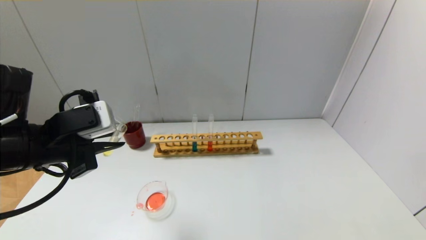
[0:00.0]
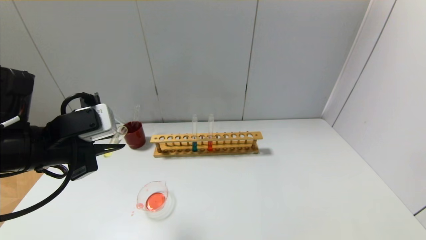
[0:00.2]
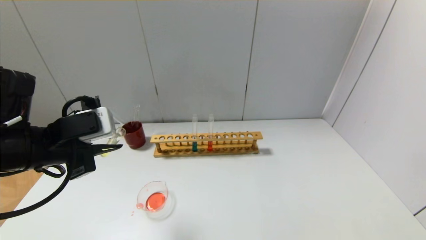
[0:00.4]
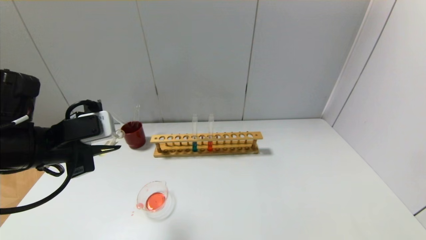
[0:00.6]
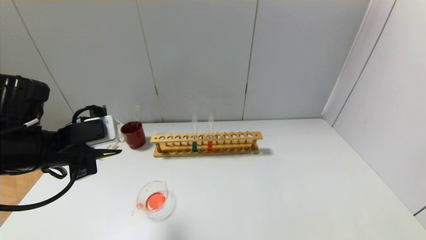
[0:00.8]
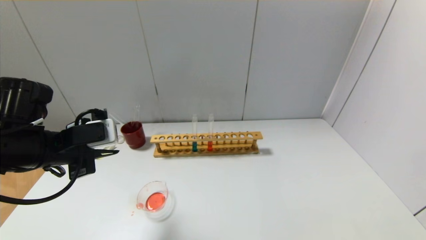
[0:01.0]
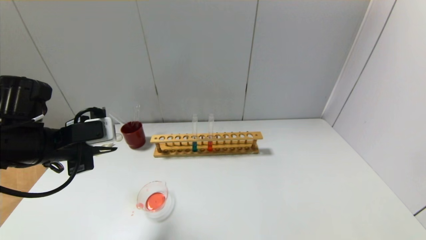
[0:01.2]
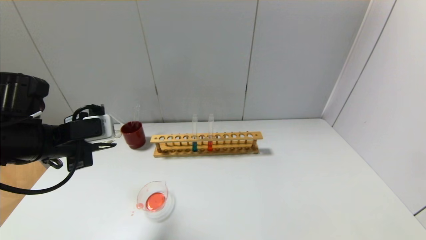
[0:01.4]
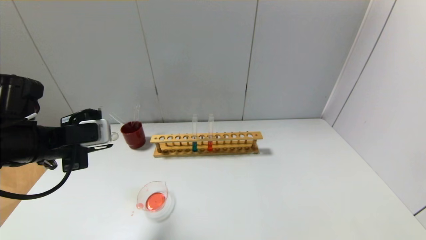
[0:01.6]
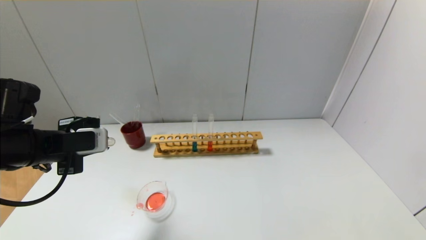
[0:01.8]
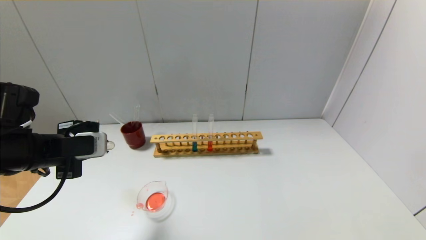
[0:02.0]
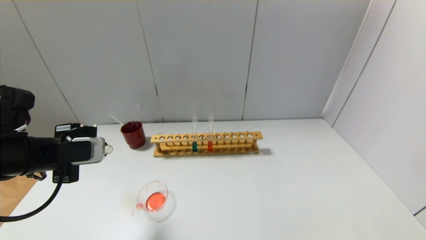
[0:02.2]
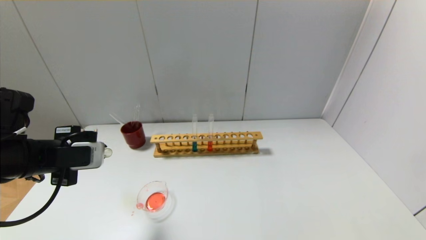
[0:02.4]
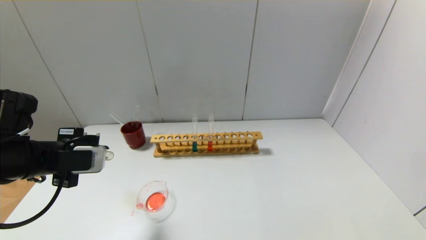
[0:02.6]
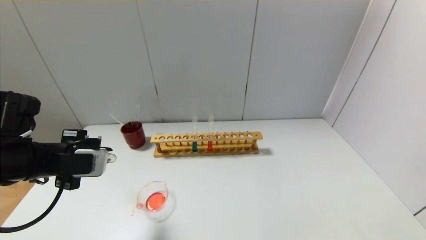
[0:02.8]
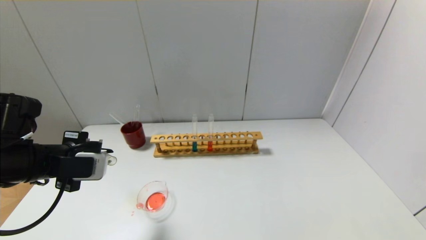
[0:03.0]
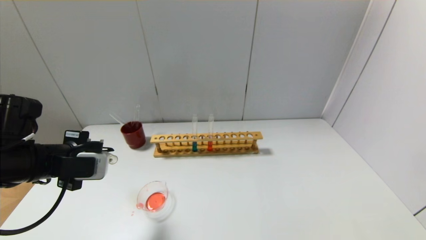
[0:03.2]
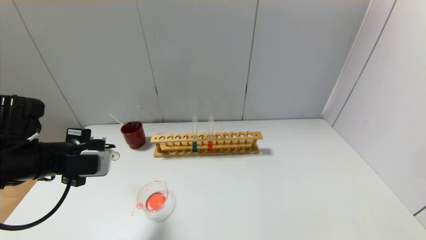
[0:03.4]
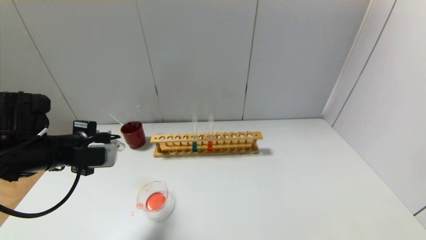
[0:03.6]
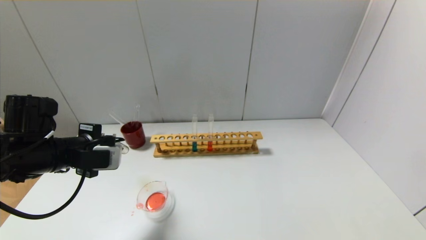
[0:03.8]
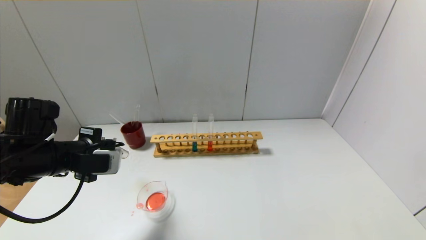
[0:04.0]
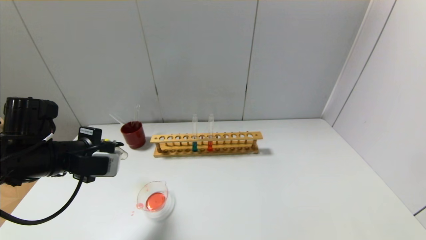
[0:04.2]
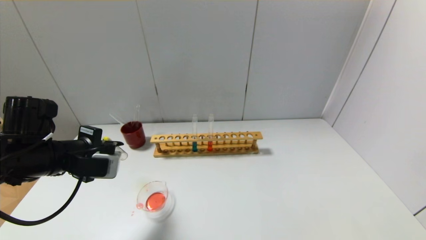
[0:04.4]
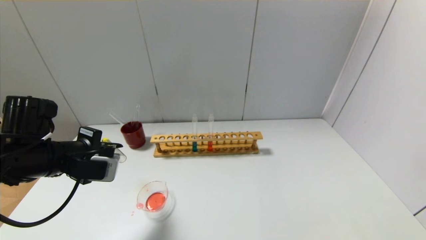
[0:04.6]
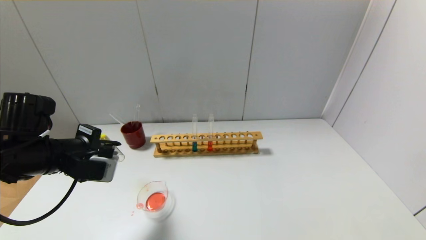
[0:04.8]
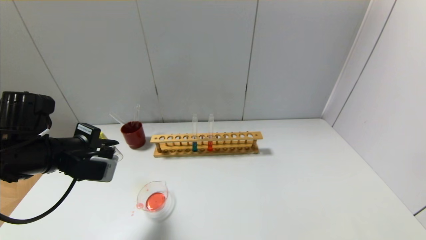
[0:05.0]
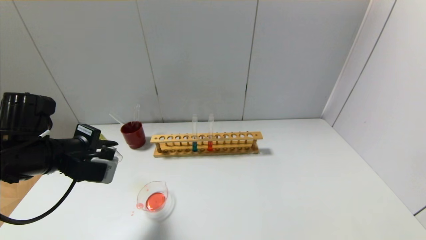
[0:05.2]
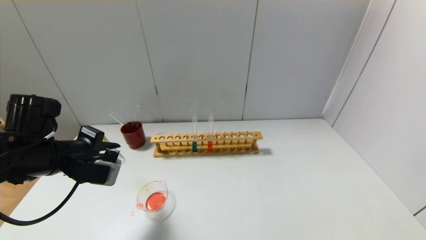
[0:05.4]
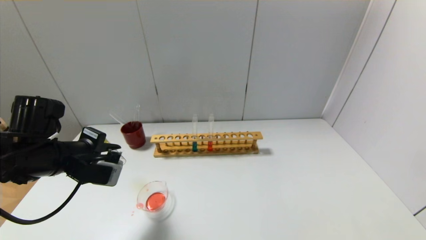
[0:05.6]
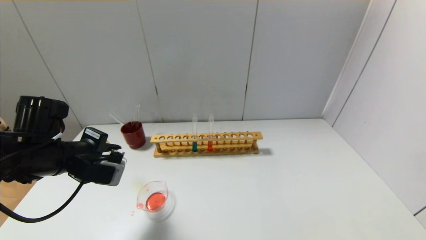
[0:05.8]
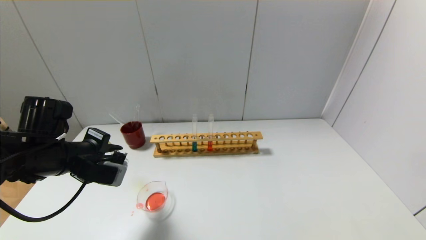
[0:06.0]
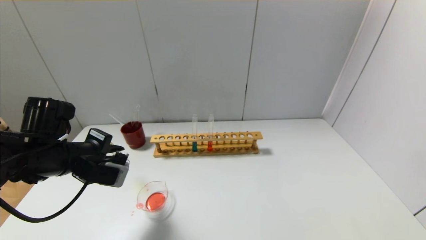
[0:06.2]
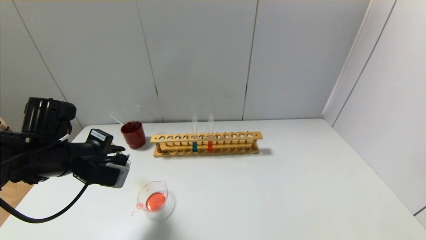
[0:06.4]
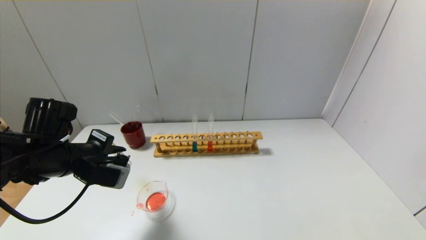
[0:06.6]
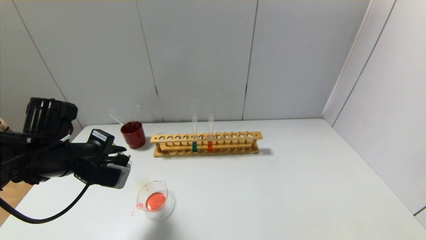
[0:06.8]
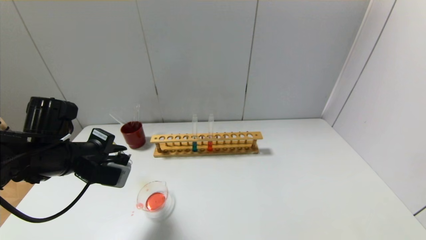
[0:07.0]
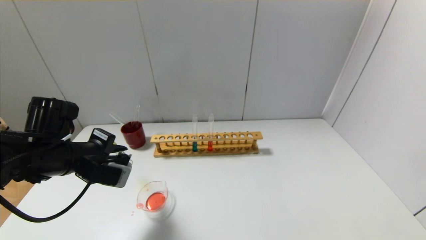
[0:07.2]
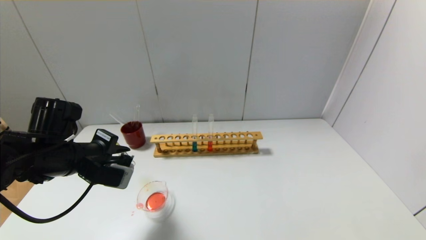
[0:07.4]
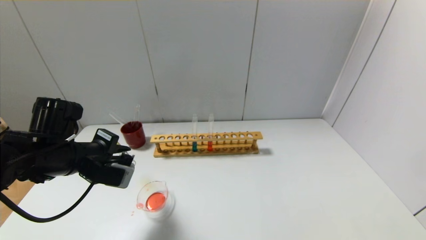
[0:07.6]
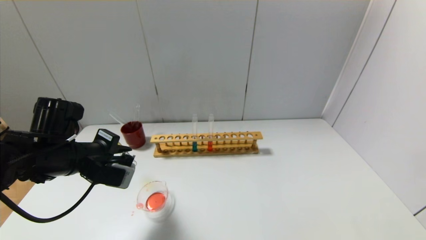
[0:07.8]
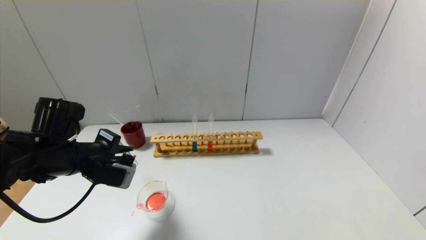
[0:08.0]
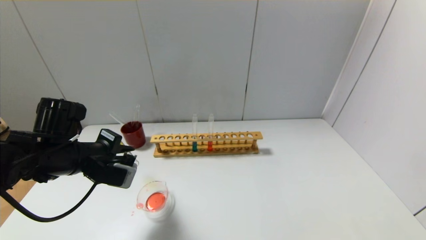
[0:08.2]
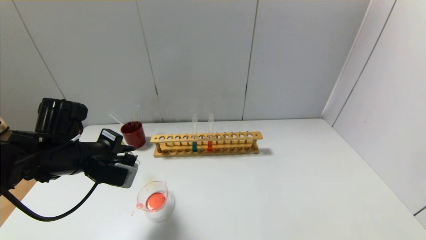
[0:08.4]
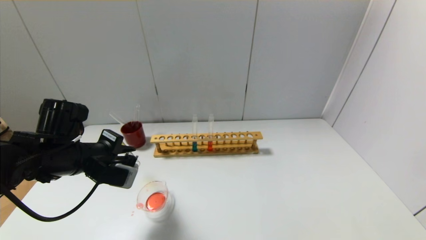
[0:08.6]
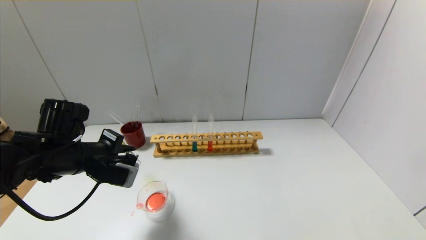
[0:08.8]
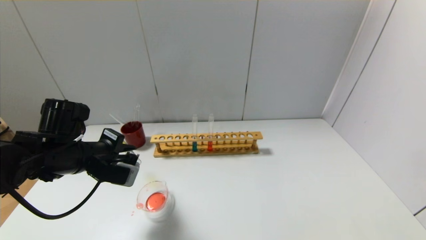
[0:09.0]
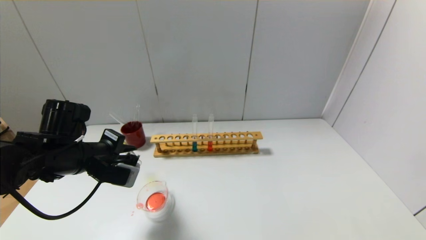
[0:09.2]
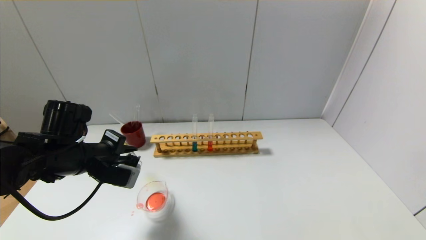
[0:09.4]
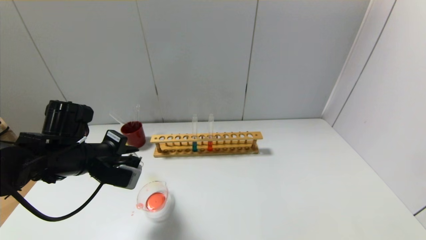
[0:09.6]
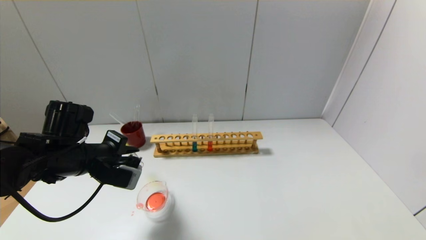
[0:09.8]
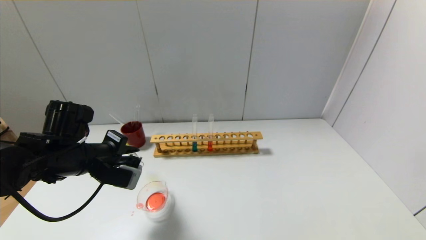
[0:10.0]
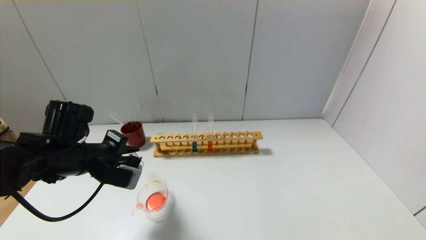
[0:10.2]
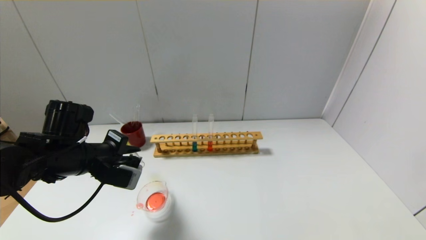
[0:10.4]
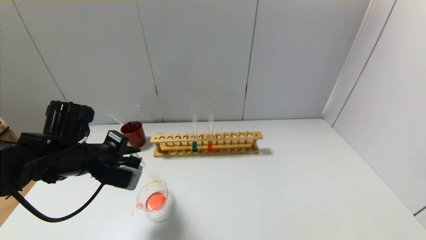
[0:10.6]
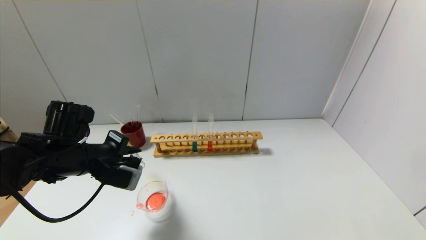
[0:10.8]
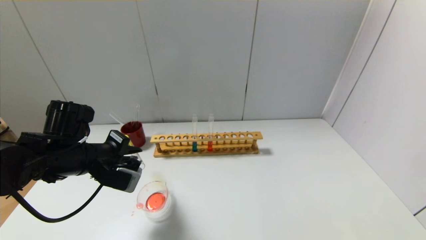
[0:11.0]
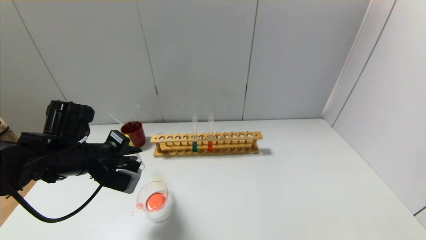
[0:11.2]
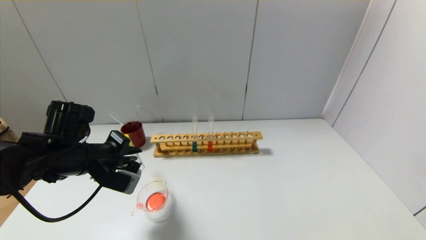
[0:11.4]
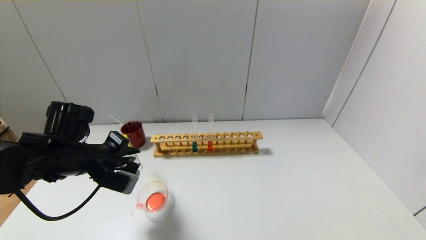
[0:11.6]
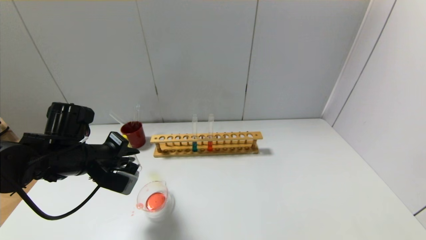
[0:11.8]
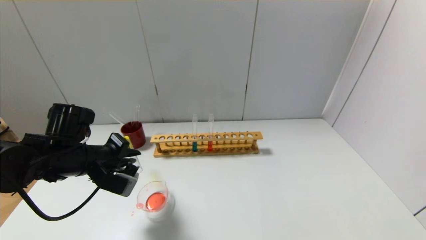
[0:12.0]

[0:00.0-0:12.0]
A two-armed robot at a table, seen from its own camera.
0.0 to 1.6 s: The left gripper shifts by about 5 cm.
1.6 to 3.0 s: The grippers stay close to where they were, moving slightly.
3.0 to 6.0 s: The grippers move only a little.
6.0 to 7.6 s: Both grippers stay put.
7.6 to 9.0 s: The two grippers keep their place.
9.0 to 10.4 s: The two grippers keep their place.
10.4 to 12.0 s: The grippers move only a little.

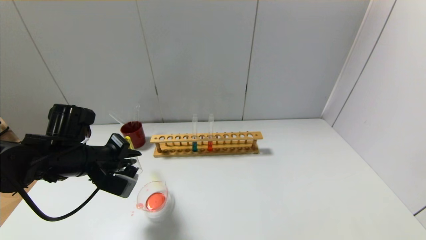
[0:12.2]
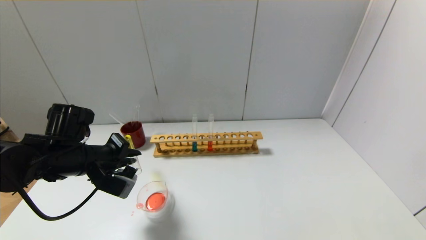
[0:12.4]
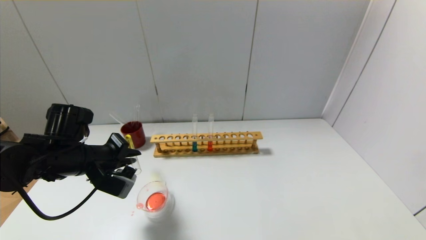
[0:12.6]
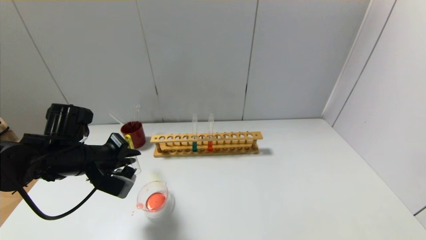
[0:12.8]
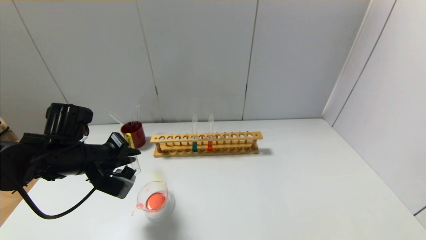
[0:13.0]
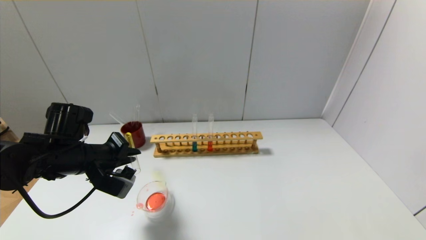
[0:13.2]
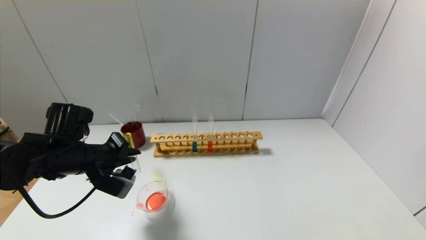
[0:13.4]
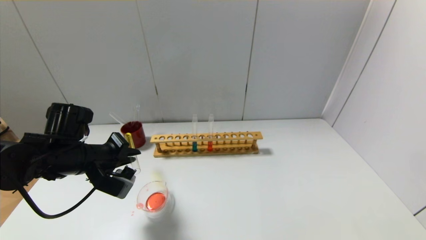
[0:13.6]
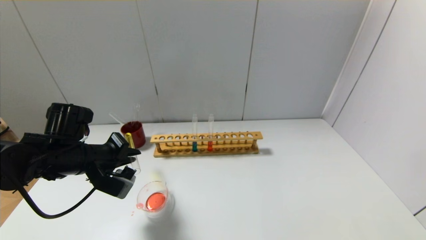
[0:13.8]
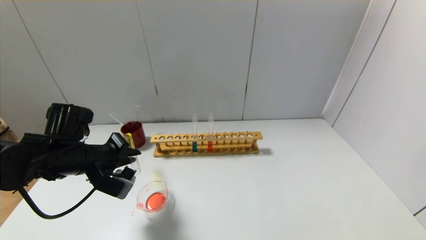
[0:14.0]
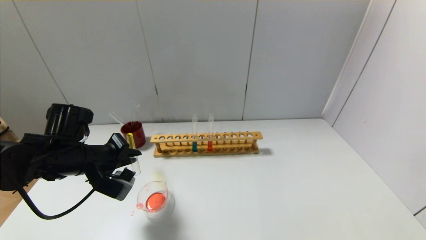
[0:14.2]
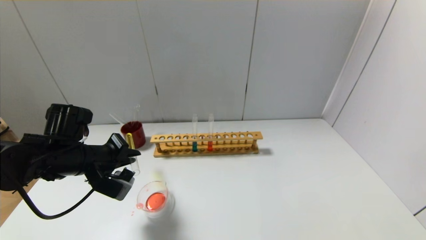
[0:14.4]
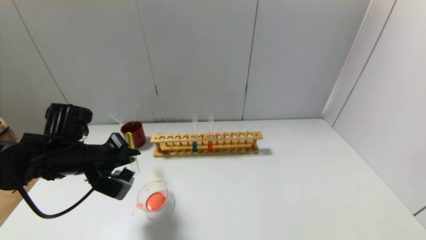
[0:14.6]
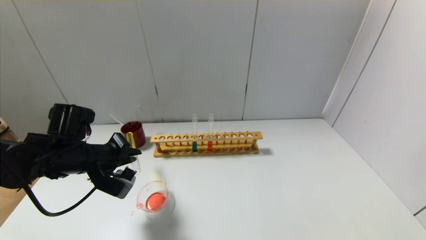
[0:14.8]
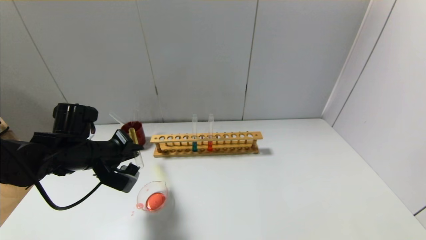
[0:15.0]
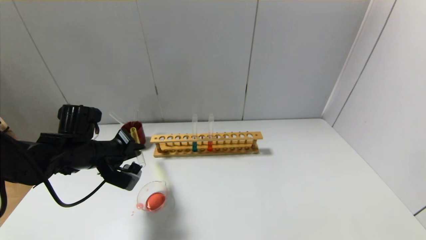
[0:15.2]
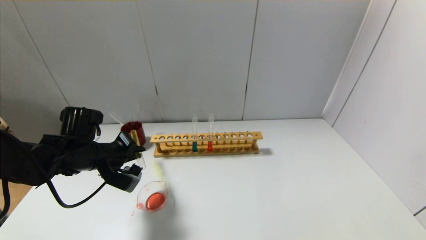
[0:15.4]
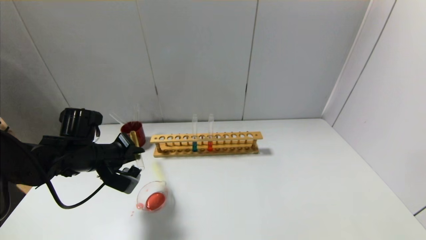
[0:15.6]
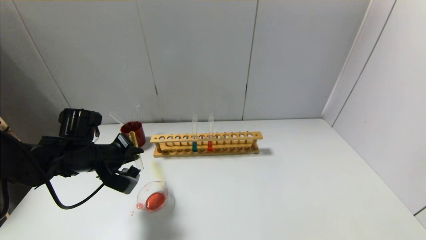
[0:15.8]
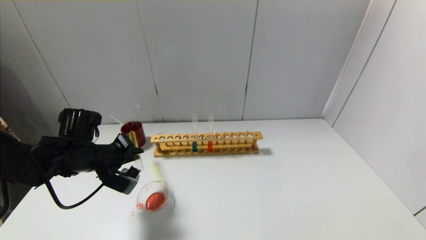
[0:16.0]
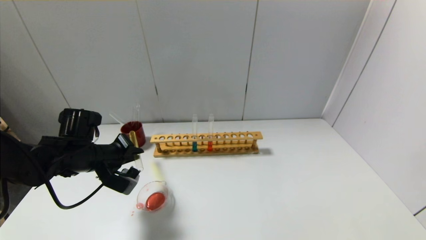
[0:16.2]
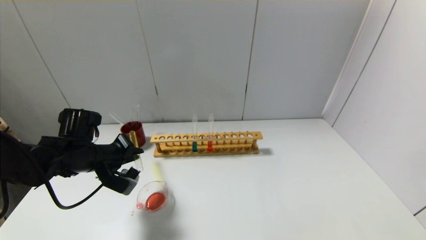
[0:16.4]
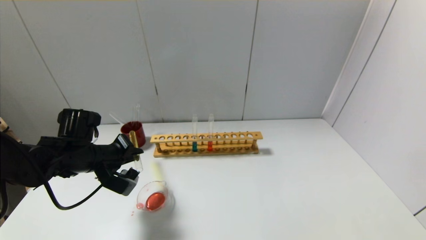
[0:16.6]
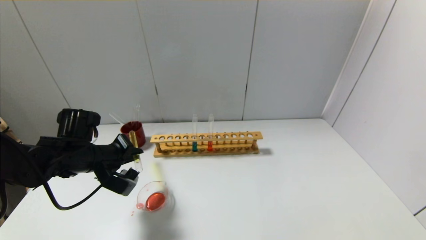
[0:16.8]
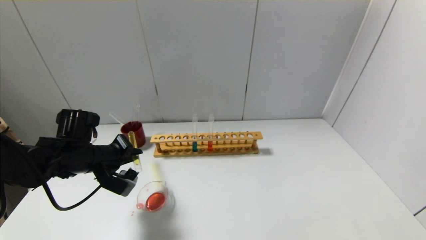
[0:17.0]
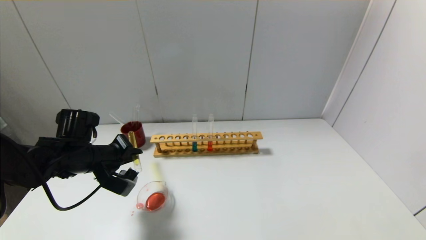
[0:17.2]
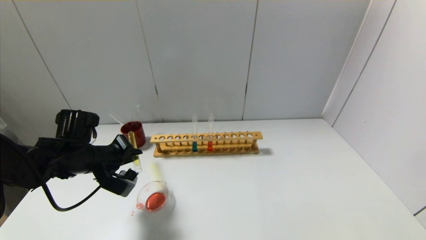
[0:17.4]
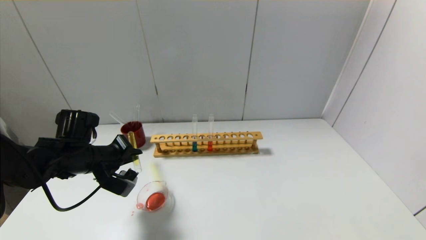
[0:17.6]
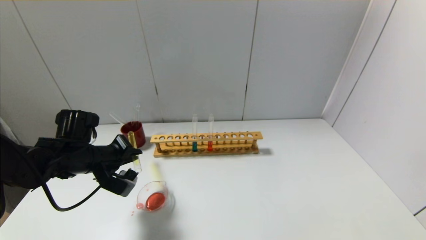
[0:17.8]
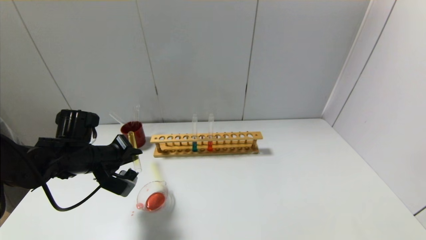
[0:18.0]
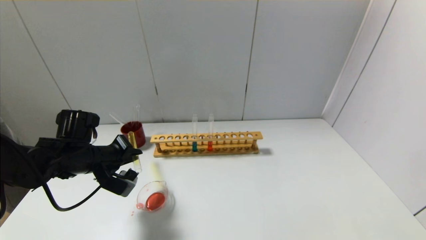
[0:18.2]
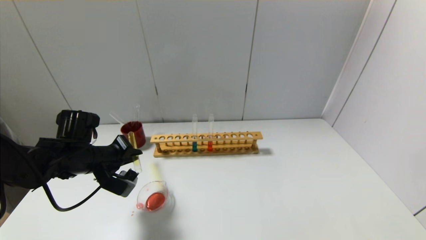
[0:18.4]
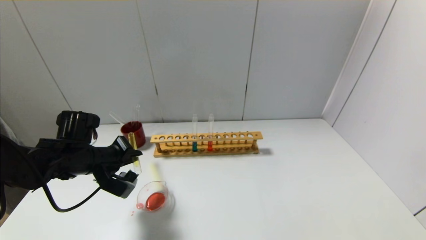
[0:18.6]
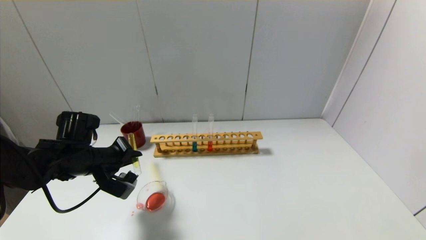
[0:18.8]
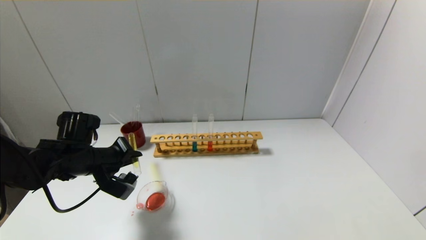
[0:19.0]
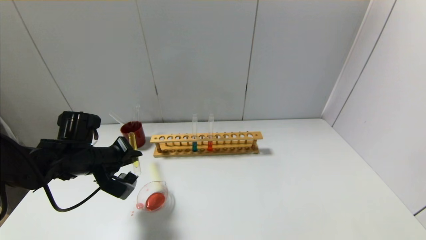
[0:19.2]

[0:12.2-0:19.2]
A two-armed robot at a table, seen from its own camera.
12.2 to 13.6 s: The two grippers keep their place.
13.6 to 16.4 s: The grippers stay close to where they were, moving slightly.
16.4 to 19.2 s: The two grippers keep their place.
